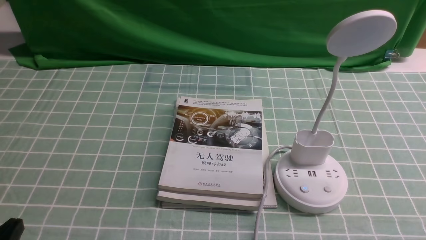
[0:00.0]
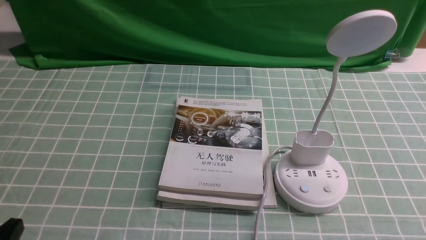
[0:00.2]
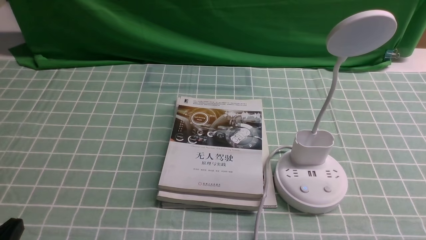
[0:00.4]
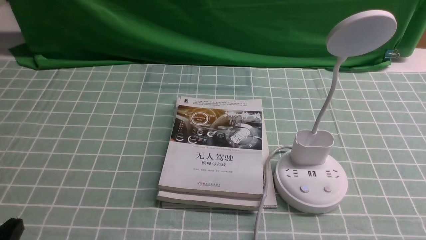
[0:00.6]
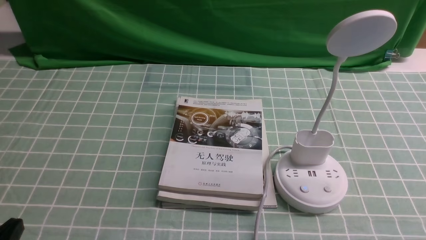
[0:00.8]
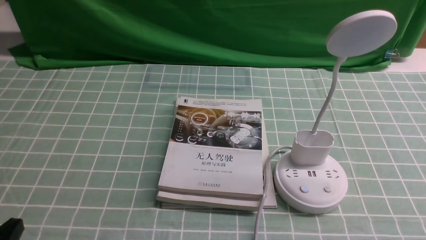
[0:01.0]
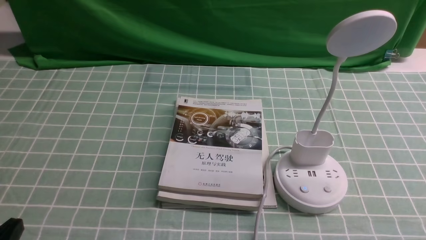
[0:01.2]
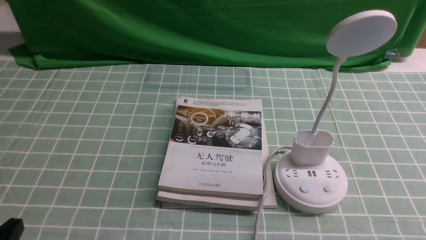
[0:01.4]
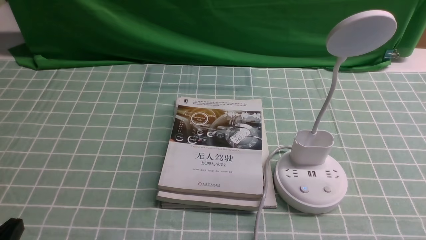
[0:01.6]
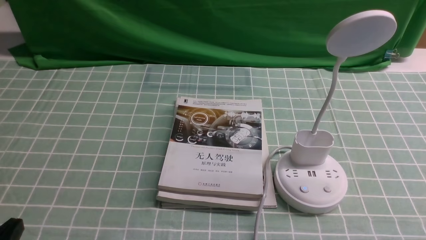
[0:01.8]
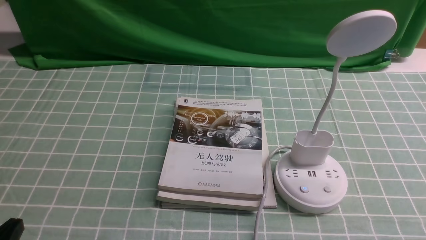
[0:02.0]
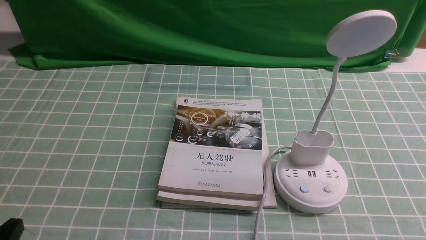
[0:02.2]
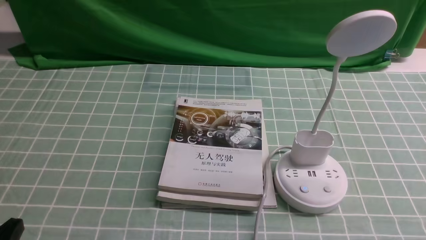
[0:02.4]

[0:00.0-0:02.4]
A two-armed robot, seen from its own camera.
Task of the whole recording: turn off the desk lamp on the blue coffee tablecloth by hand.
0:01.2 to 0:02.4: Both grippers stay about where they are.
